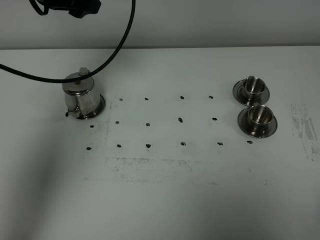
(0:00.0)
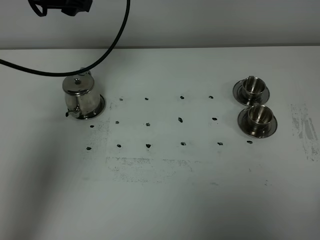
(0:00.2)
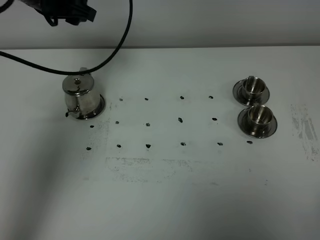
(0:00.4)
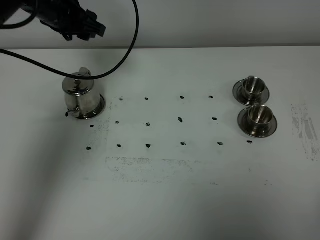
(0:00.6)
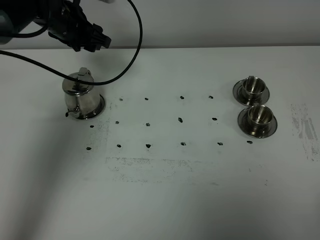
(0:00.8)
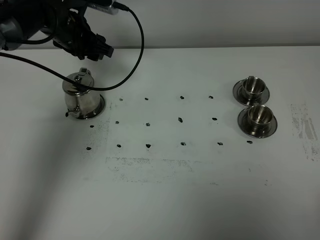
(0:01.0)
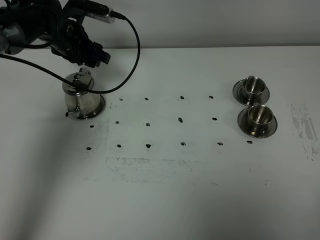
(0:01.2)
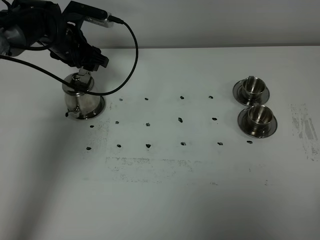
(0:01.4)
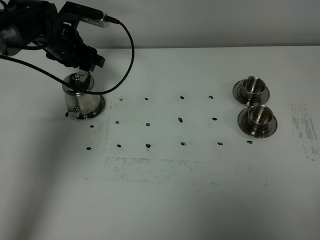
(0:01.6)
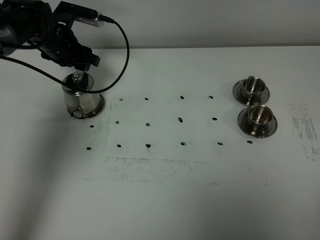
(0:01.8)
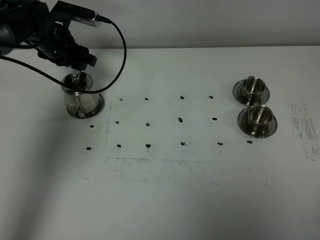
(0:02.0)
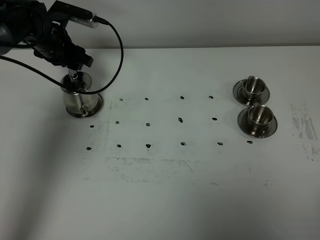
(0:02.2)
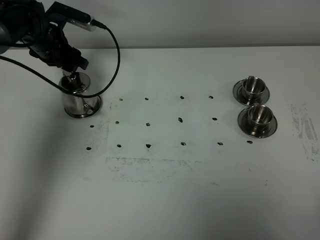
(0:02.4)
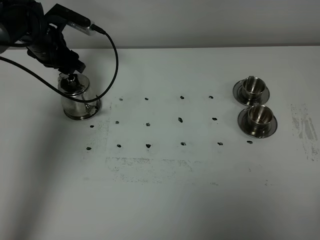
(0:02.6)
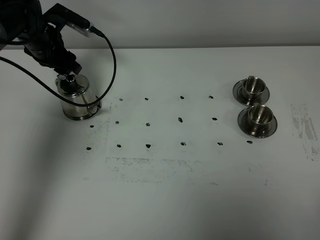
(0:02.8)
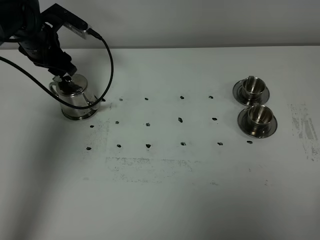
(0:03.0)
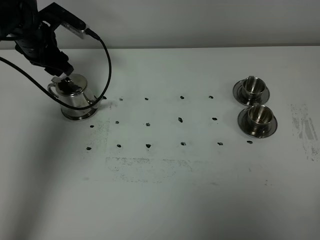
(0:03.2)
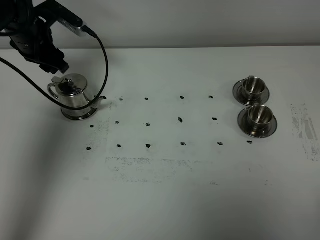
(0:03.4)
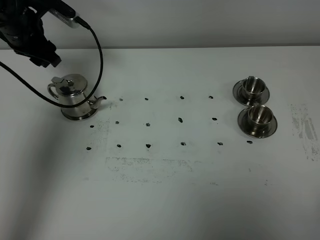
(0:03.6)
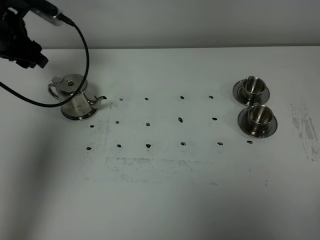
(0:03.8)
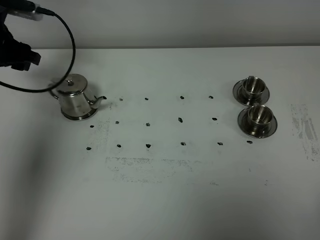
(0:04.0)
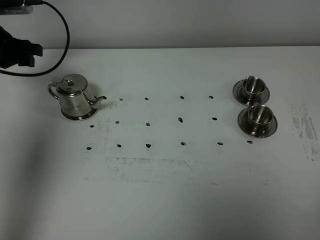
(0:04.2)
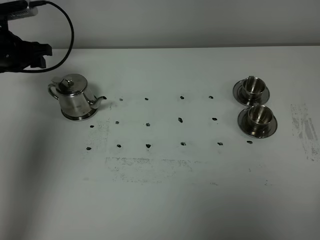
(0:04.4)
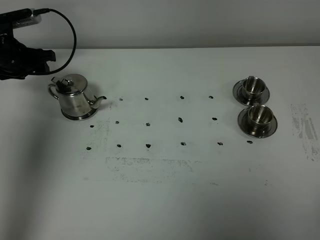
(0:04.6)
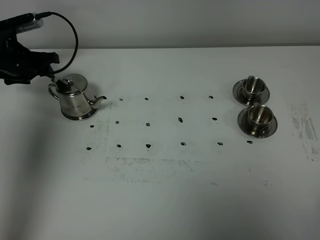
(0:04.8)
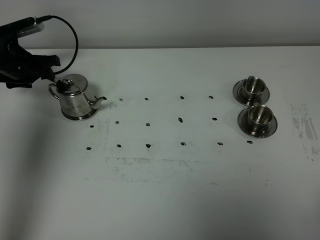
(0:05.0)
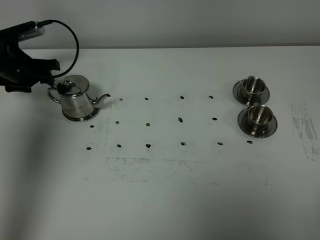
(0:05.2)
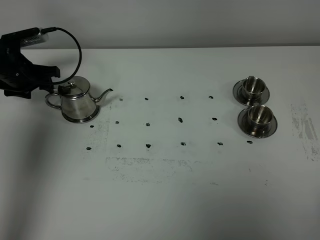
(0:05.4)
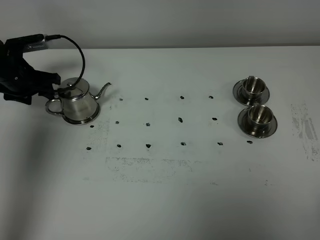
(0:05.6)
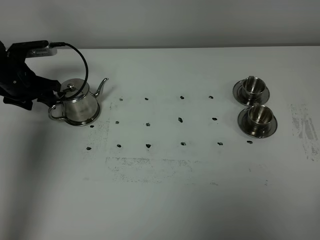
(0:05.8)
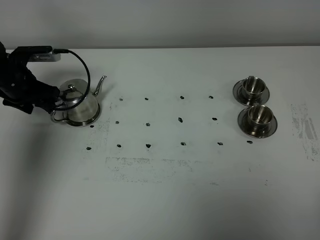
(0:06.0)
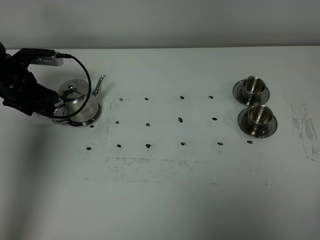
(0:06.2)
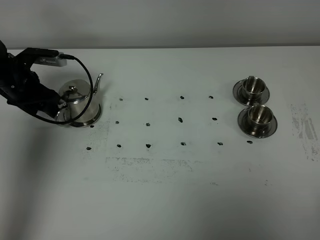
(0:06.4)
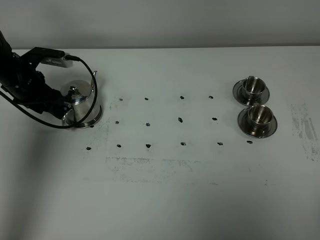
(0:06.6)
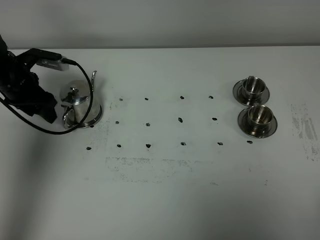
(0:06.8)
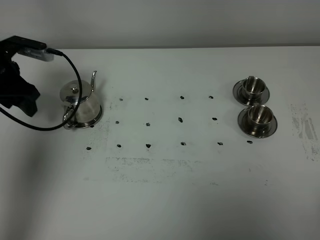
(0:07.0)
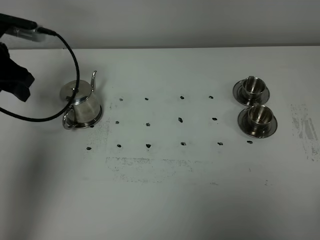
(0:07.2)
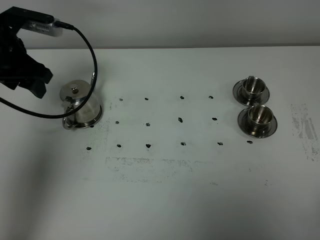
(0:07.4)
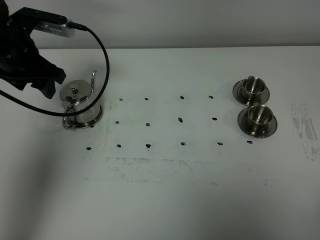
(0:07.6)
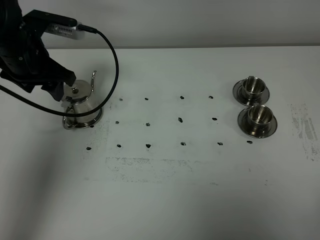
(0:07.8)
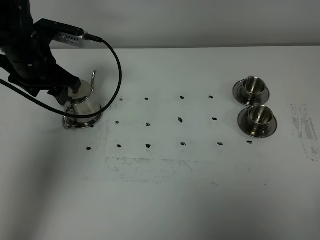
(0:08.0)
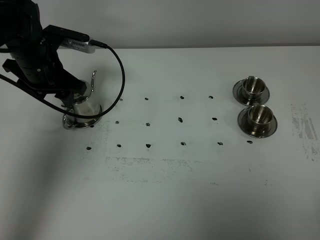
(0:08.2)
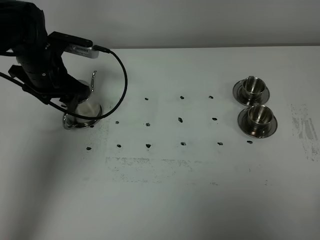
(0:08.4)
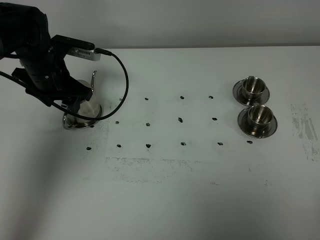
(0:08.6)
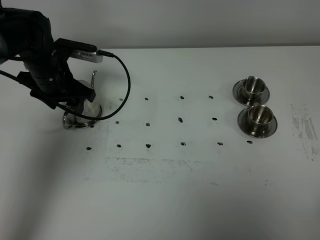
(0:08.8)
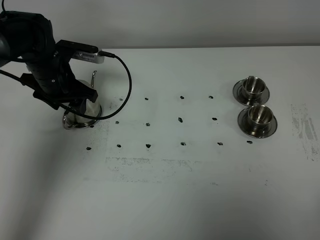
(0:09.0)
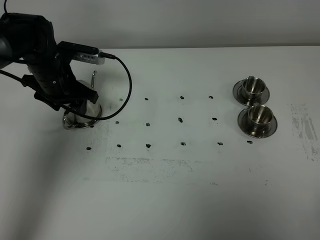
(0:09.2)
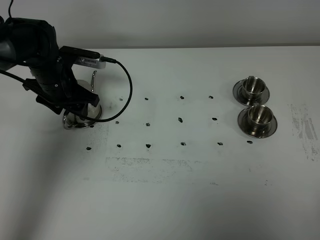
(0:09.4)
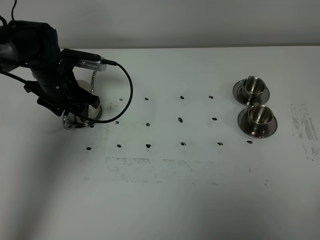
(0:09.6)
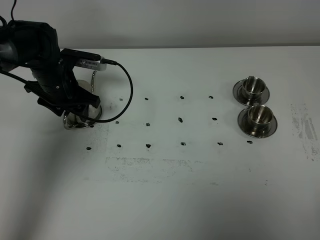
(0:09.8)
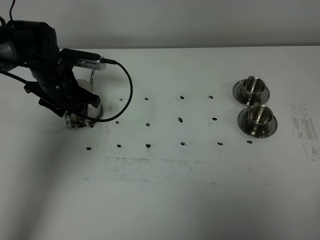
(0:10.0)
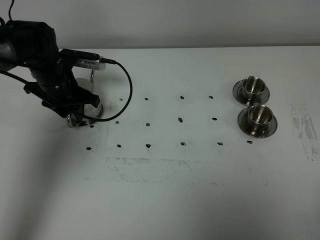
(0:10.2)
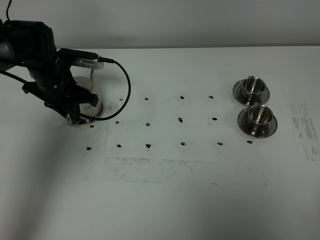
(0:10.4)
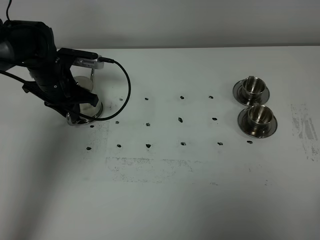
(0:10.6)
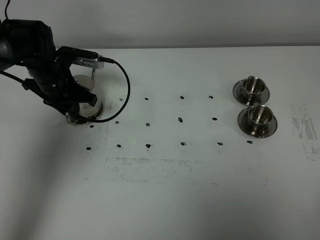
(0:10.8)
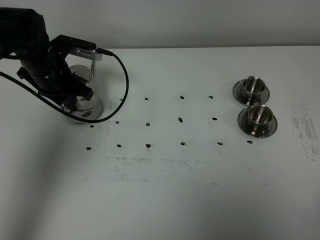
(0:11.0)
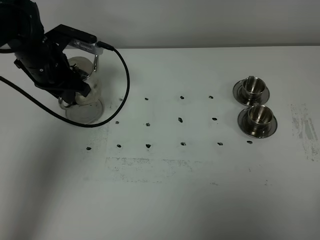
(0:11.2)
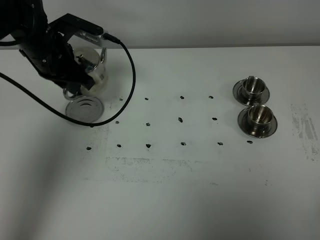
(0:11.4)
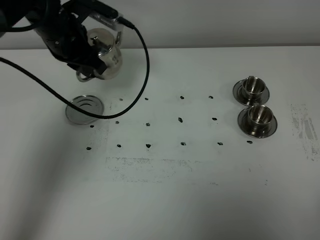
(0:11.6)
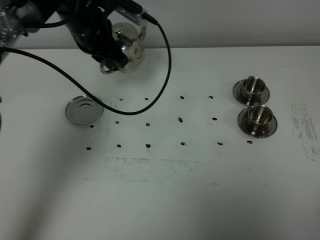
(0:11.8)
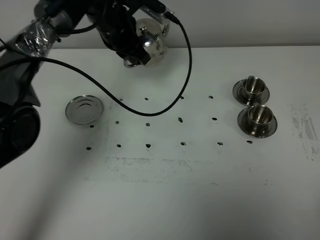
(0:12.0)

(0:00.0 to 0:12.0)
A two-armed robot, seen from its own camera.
Task of the whole recording: grasp the stainless steel teapot and pour the tea into the two stainless steel teacups one by one, put the stainless steel teapot back in its original place.
Step, 0:00.0 - 0:10.8: Pick up the teapot with the left gripper.
0:00.0 - 0:01.6: The left gripper goes about 20 cm downward and forward.
0:01.6 - 0:03.0: The grippers stay close to where they were, moving slightly.
0:03.0 - 0:04.4: The left gripper is displaced to the left by roughly 5 cm.
0:04.4 - 0:06.0: The left gripper heads downward, covering about 5 cm.
0:06.0 - 0:07.6: The left gripper is displaced upward, to the right and backward by about 15 cm.
0:07.6 - 0:09.0: The left gripper shifts about 10 cm downward.
0:09.0 - 0:10.4: The left gripper closes its fingers.
0:10.4 - 0:12.0: The left gripper heads to the right, upward and forward, covering about 15 cm.

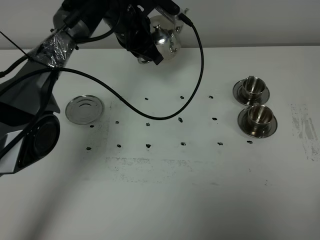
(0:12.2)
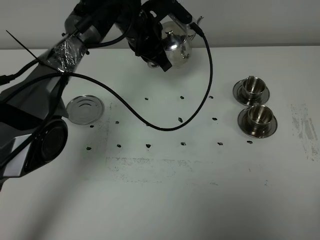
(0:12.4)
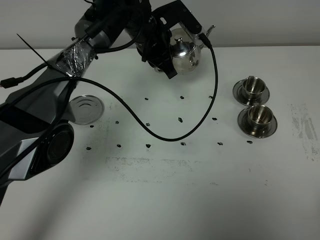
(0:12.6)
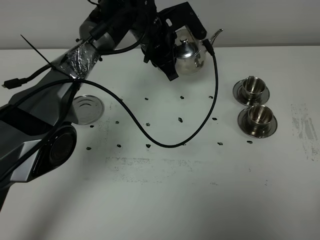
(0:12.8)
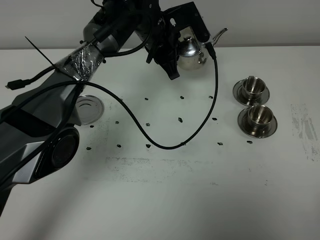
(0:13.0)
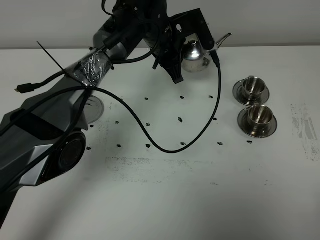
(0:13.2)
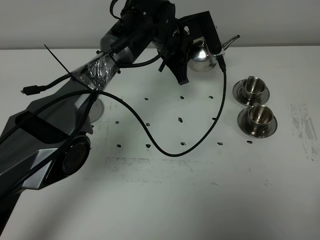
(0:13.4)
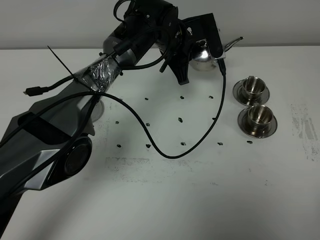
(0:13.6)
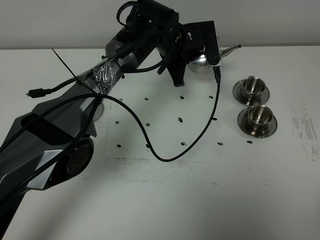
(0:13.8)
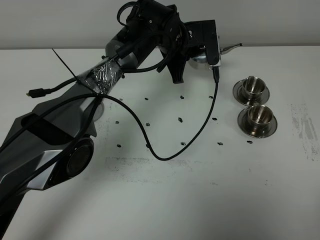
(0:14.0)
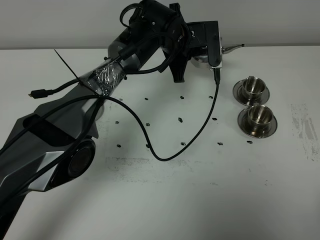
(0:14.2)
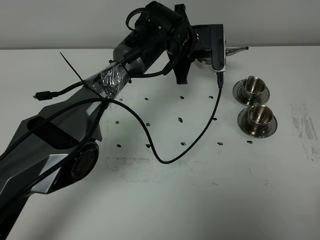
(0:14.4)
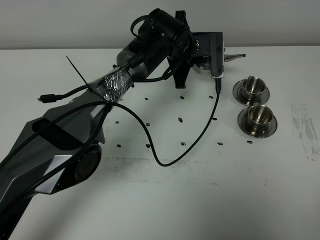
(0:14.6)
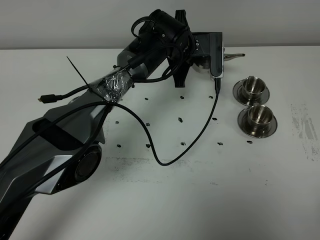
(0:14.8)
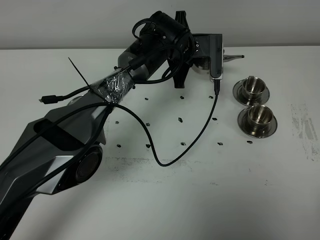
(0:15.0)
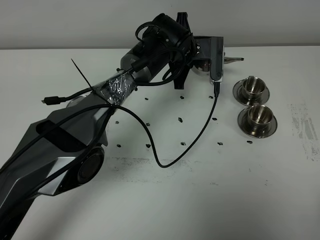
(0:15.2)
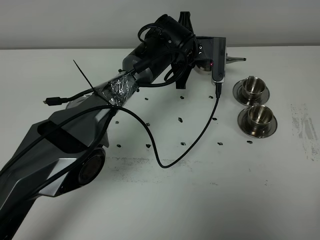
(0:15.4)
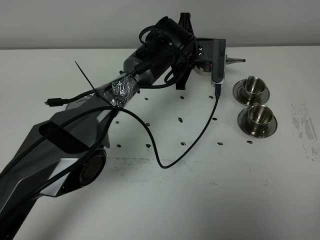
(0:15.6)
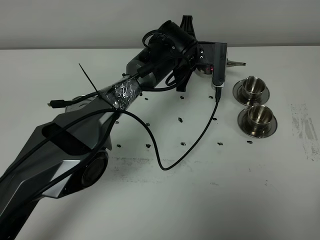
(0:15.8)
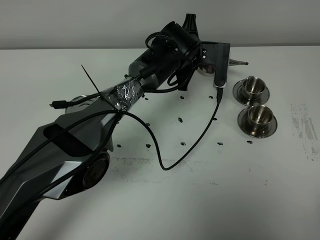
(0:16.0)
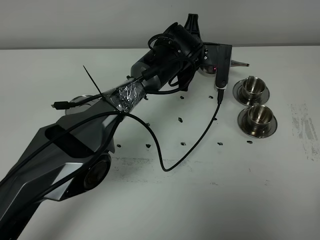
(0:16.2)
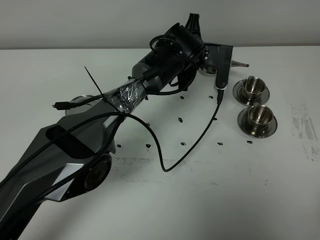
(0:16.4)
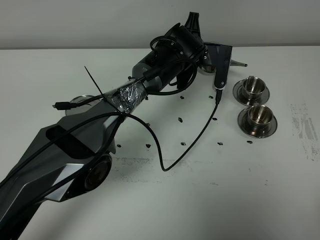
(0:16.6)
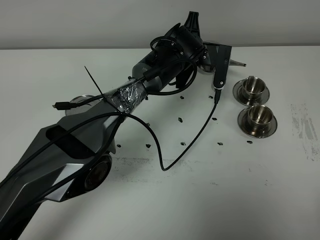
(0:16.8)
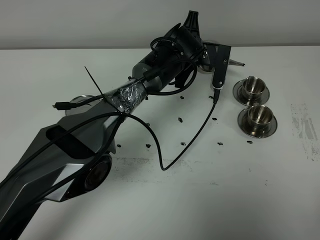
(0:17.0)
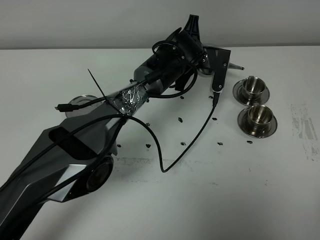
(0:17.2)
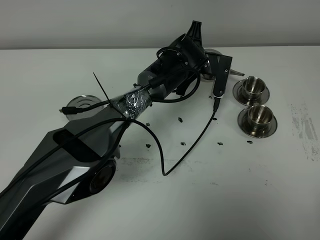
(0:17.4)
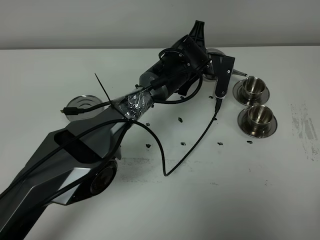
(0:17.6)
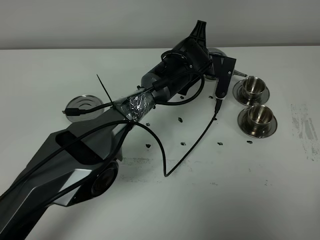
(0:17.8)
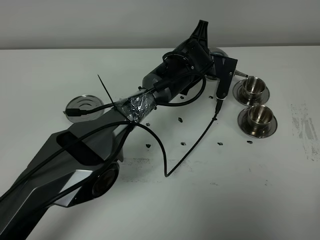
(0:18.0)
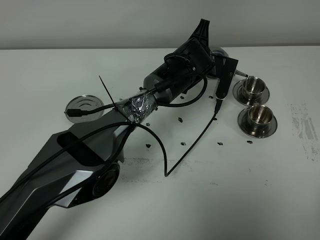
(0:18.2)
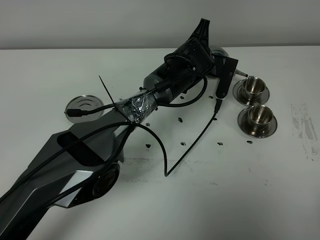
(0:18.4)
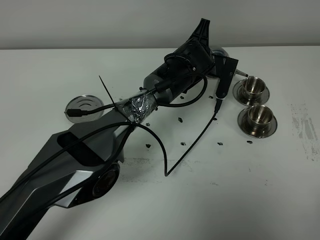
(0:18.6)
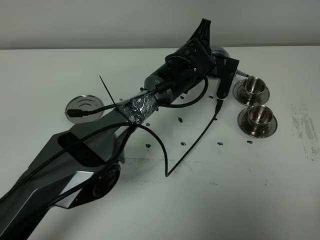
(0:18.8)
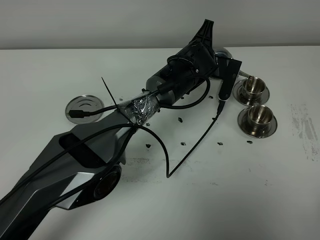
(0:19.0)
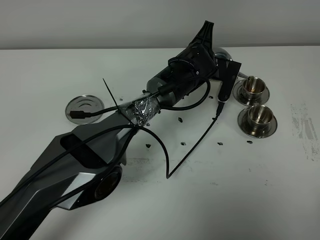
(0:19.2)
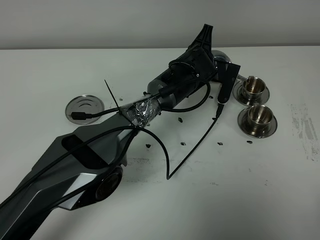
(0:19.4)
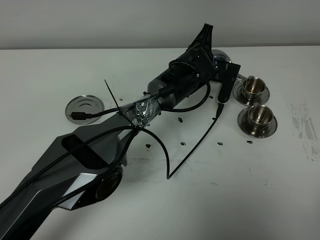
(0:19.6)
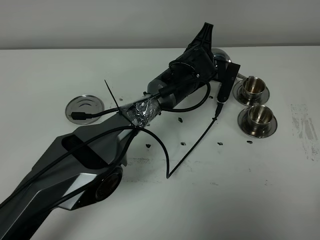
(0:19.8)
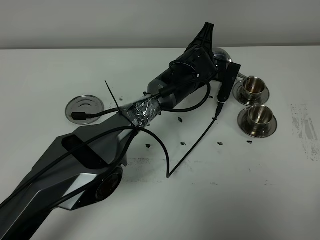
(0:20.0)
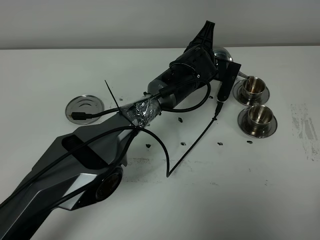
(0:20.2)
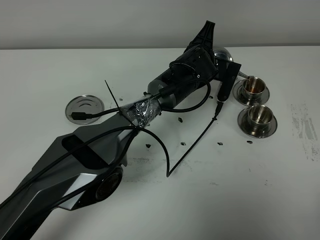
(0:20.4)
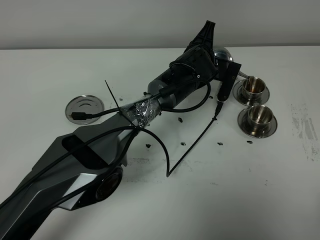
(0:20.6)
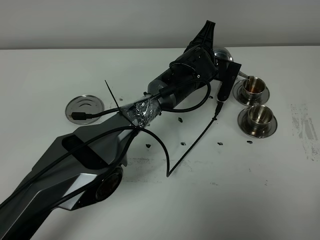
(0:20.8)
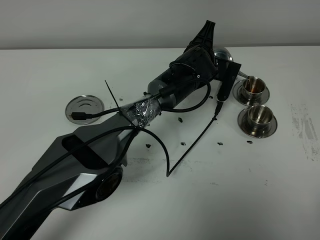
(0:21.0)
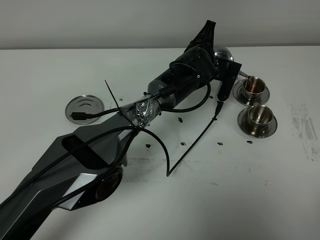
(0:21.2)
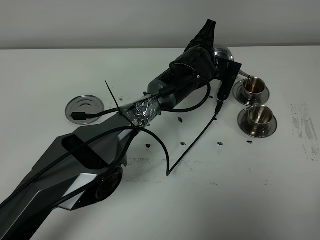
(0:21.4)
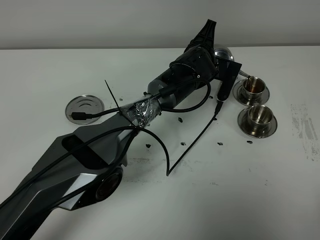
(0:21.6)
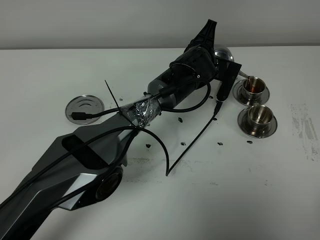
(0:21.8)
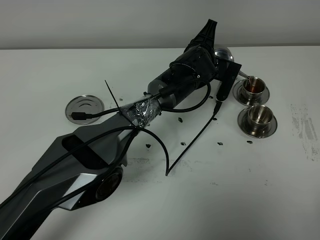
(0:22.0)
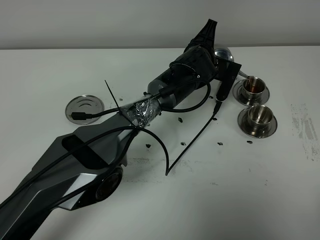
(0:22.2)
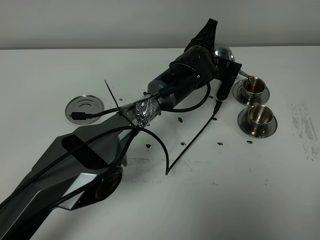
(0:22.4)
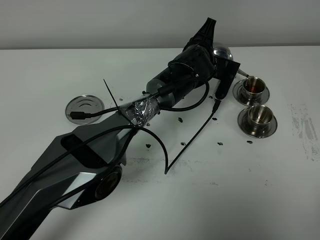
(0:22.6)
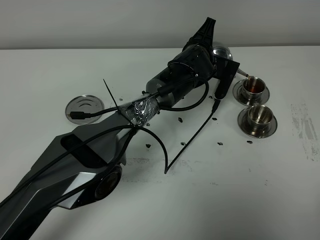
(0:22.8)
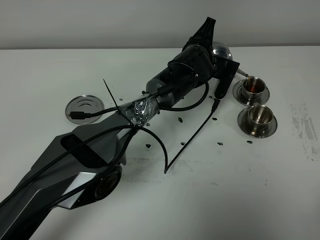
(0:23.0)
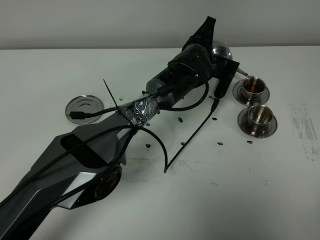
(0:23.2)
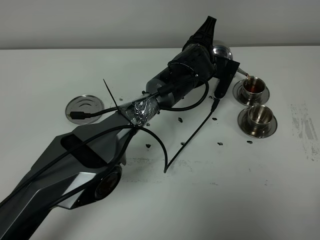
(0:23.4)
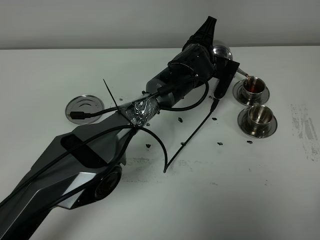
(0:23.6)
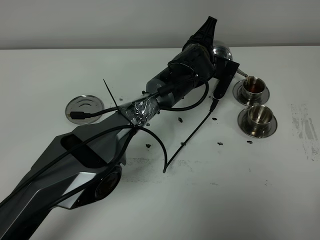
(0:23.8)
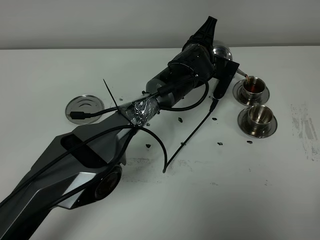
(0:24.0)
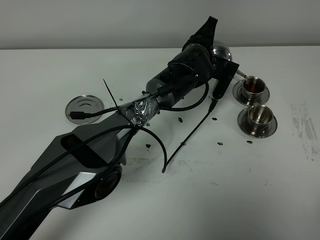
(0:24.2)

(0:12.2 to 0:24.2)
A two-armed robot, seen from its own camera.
Task of the whole recording: grasp the stainless steel teapot and pour the tea into the two stainless steel teacups one by one, put the stainless steel teapot back in its original place.
0:12.2 - 0:13.8: The left gripper shifts roughly 10 cm to the right.
0:13.8 - 0:15.2: The grippers stay close to where they were, moving slightly.
0:15.2 - 0:18.2: The grippers stay close to where they were, moving slightly.
0:18.2 - 0:19.8: The two grippers keep their place.
0:19.8 - 0:21.2: Neither gripper changes place.
0:21.2 - 0:22.6: Neither gripper changes place.
0:22.6 - 0:24.2: Neither gripper changes place.
